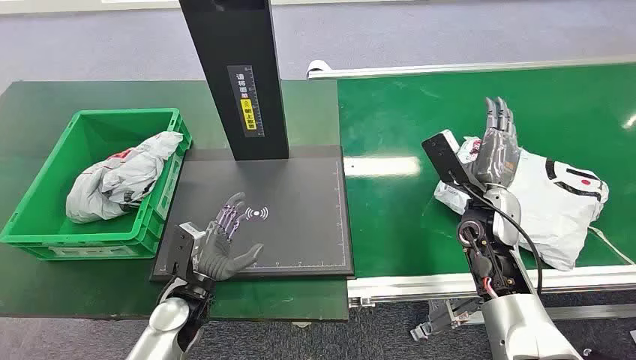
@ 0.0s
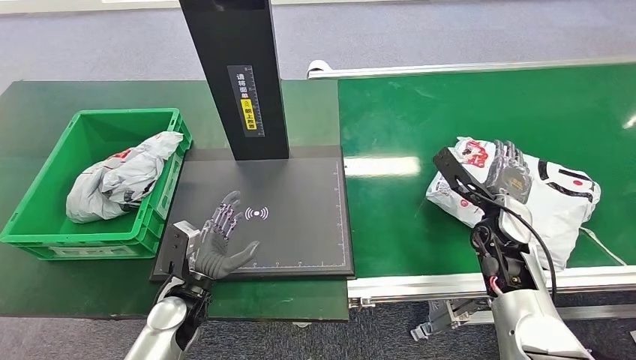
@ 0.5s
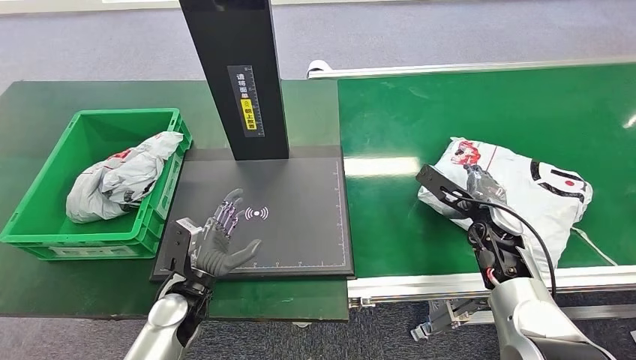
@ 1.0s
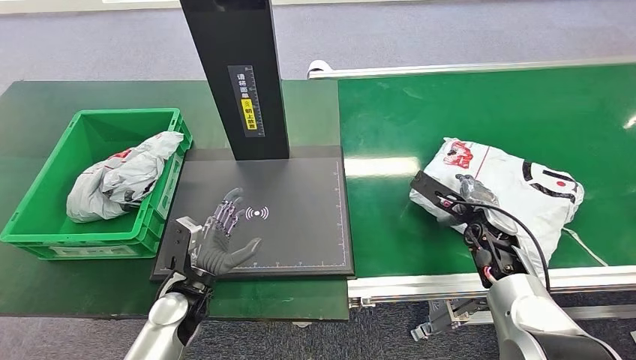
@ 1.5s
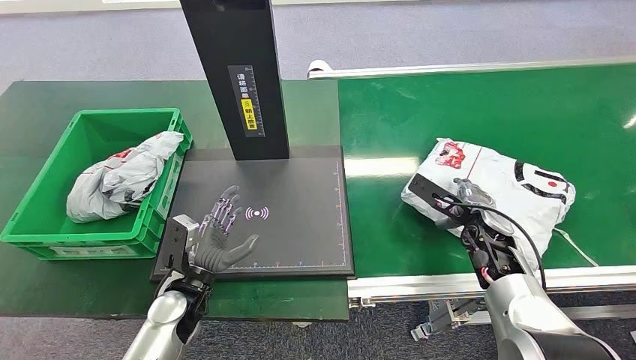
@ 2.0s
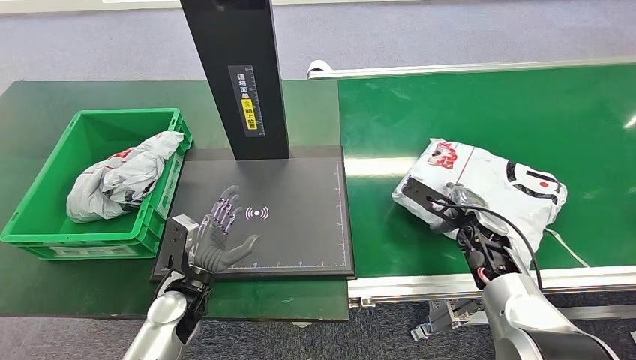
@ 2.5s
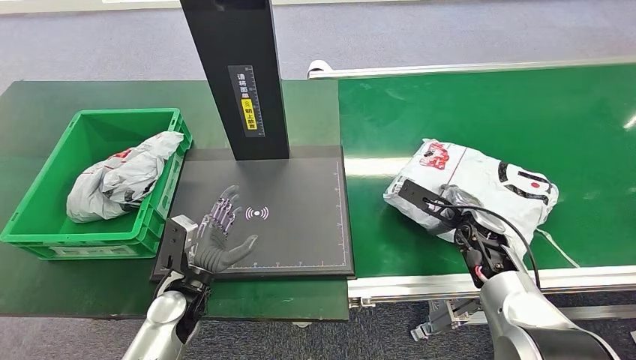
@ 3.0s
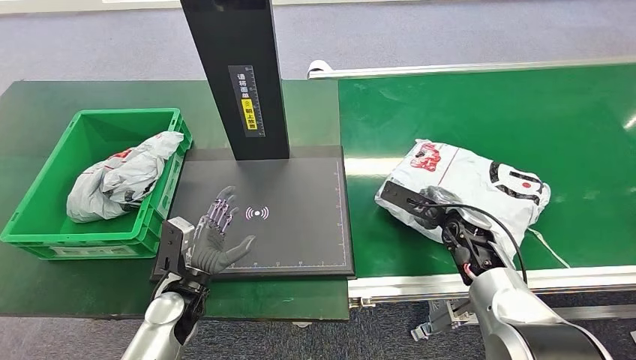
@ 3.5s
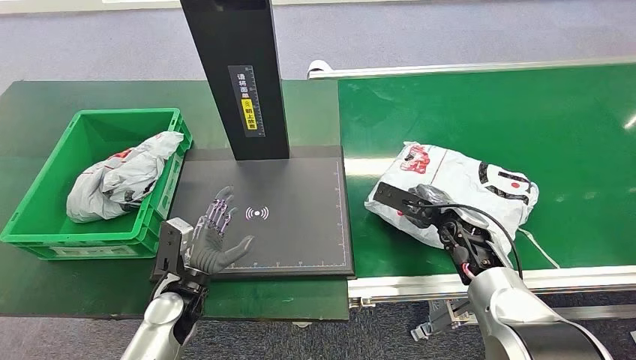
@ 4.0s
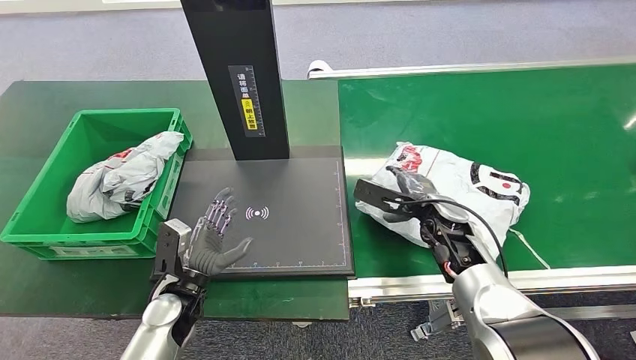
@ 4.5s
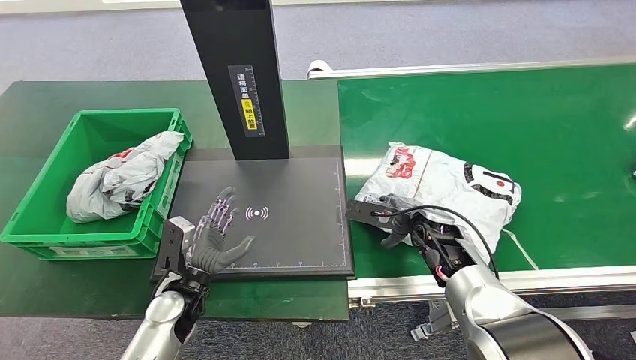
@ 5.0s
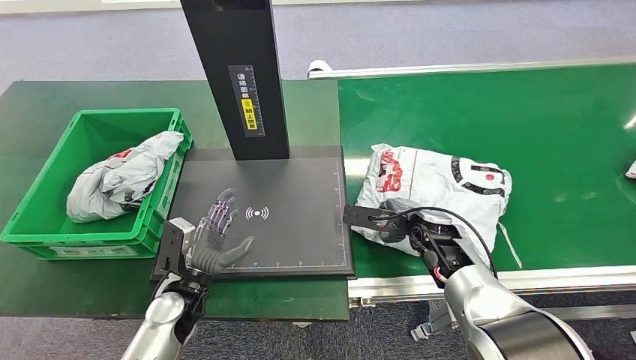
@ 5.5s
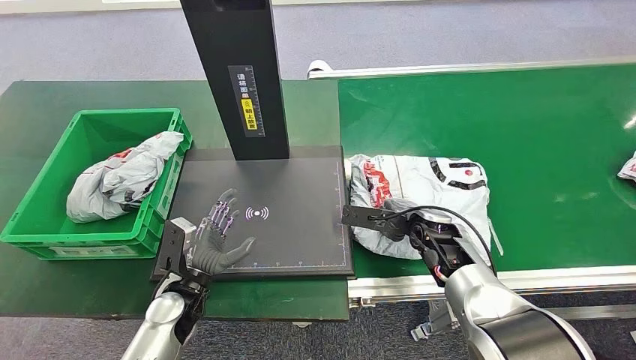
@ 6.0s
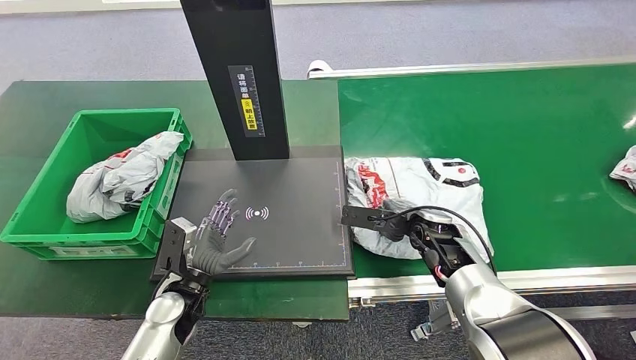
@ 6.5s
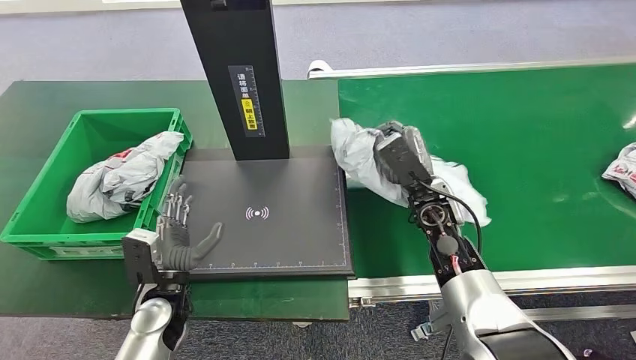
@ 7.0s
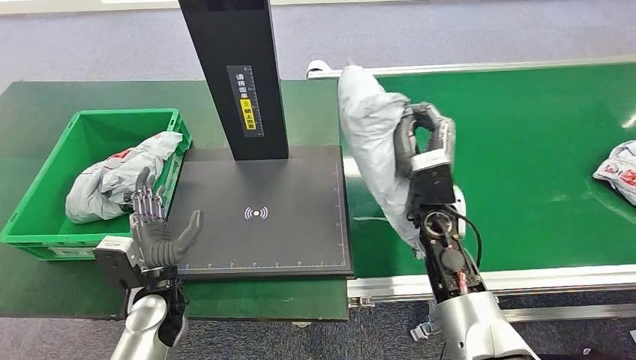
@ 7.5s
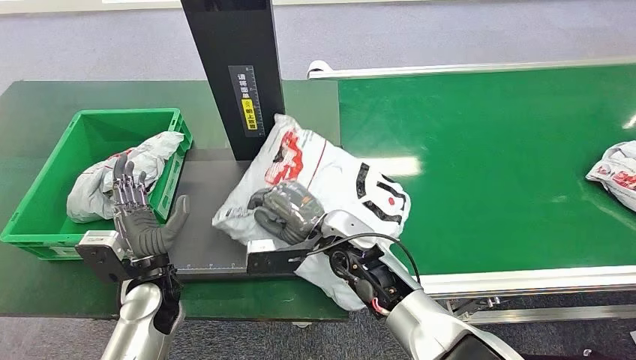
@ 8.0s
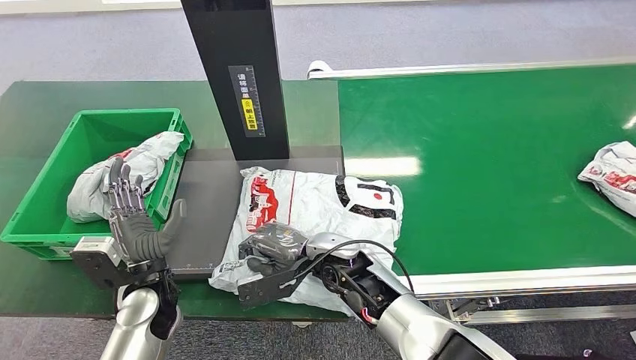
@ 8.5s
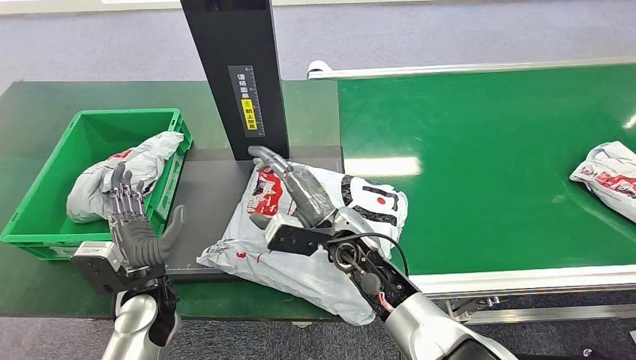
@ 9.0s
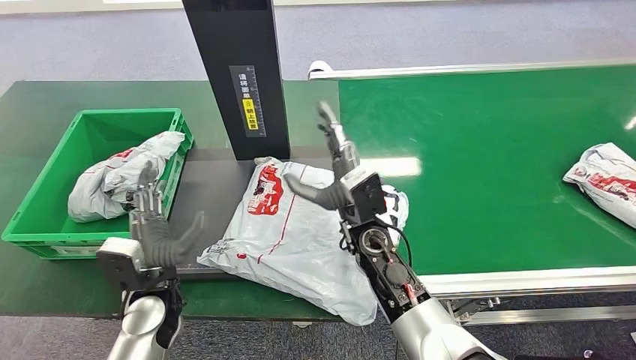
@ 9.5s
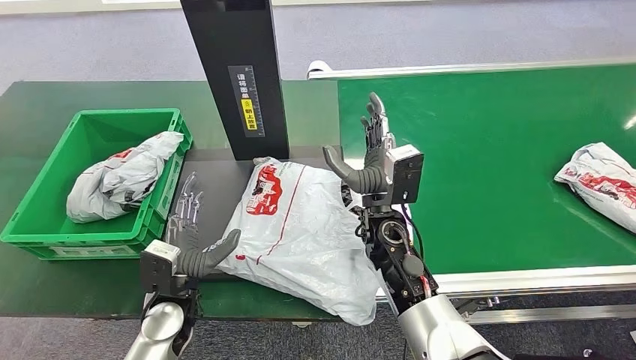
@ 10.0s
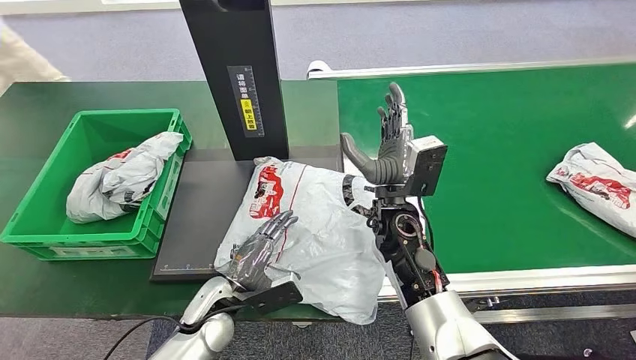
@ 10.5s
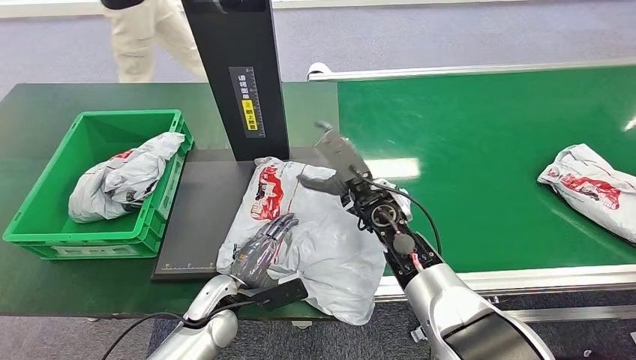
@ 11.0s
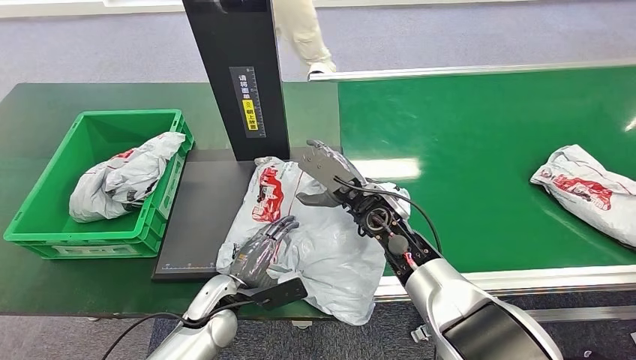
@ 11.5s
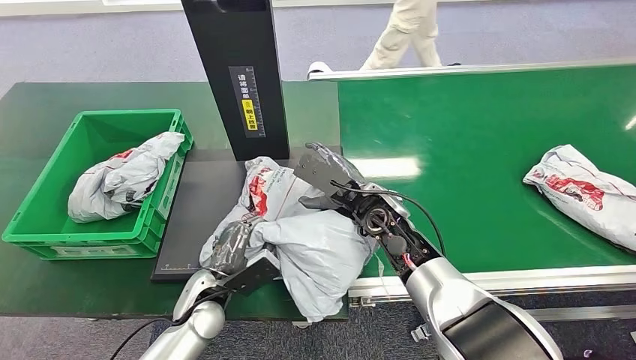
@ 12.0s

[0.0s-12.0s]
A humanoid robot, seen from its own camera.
Task of the whole recording: Weigh the package on the weighing device and place it in the left basket.
Step, 0.0s to 7.5s: Pick up the package from the conveyor belt.
Step, 8.0s to 9.5s: Place the package onto the inbound machine.
4.0s to 6.0s: The right hand moves to the left, about 5 cm.

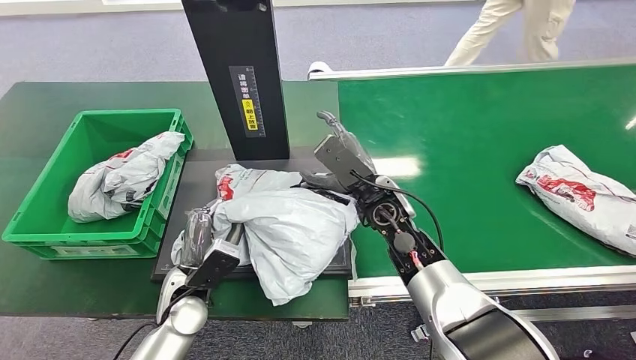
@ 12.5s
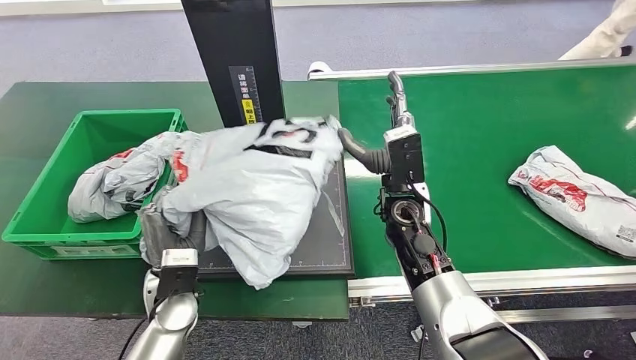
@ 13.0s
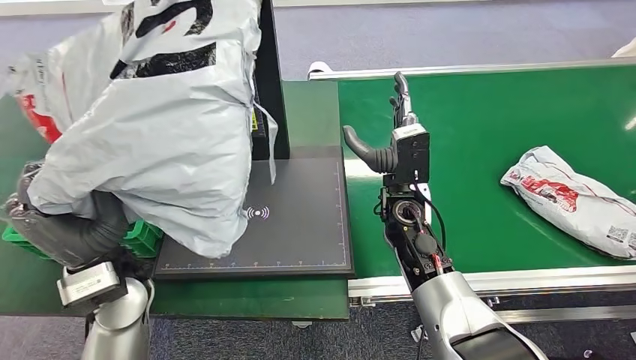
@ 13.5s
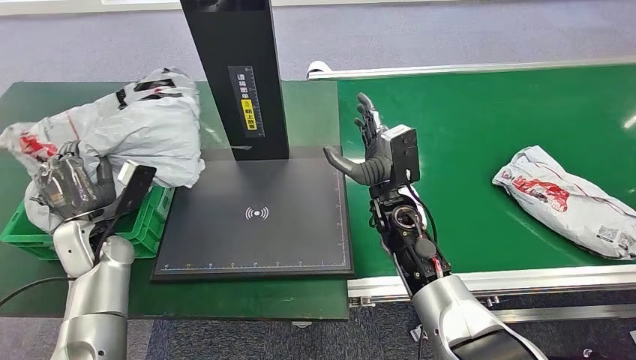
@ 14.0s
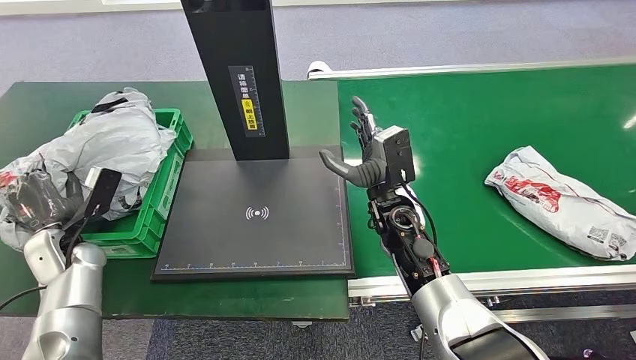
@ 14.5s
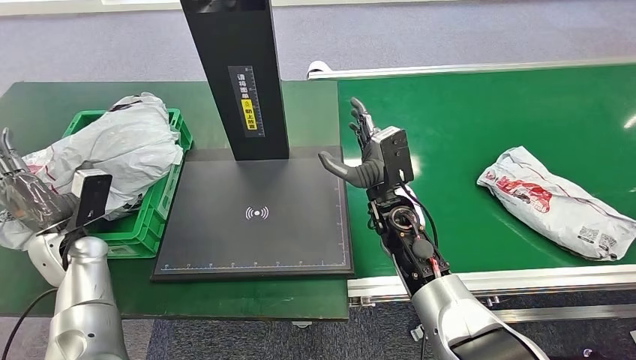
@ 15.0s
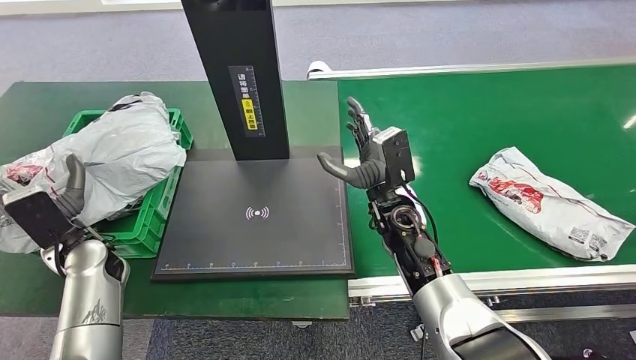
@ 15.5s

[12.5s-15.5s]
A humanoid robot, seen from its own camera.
Task of the whole recording: Weigh the package on the weighing device and place it in the left basket.
Step, 14.0s to 15.5s: Place the package into the parcel locker.
